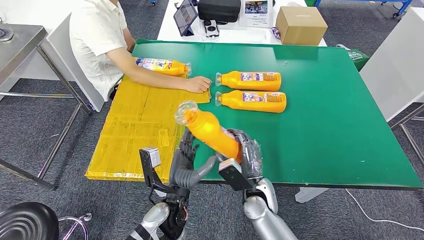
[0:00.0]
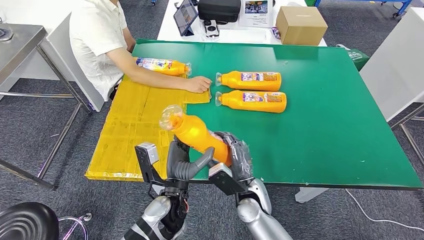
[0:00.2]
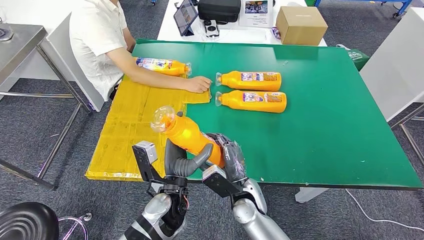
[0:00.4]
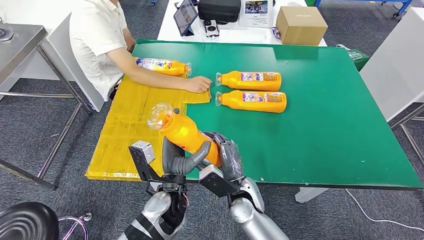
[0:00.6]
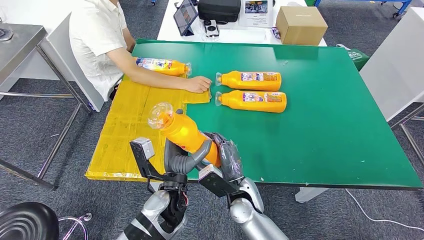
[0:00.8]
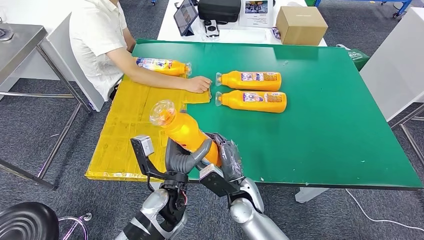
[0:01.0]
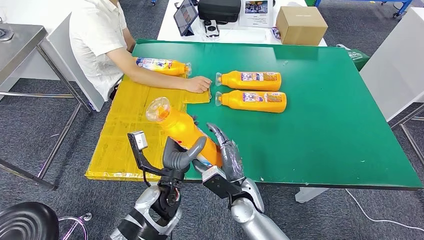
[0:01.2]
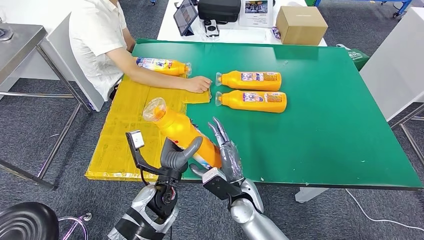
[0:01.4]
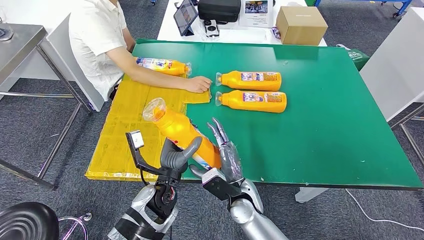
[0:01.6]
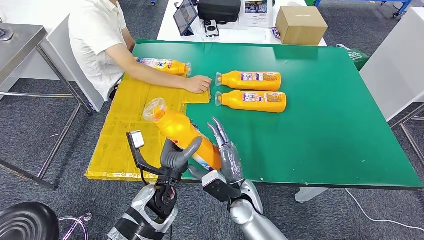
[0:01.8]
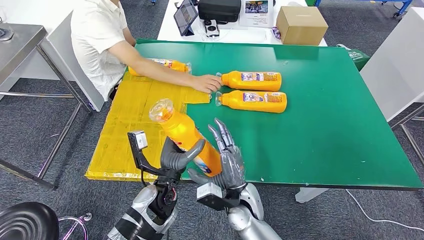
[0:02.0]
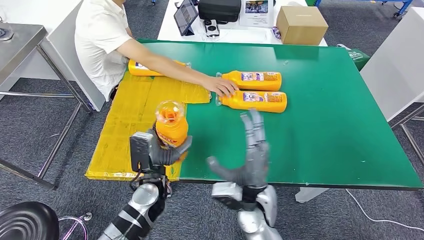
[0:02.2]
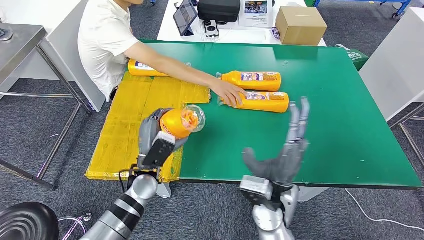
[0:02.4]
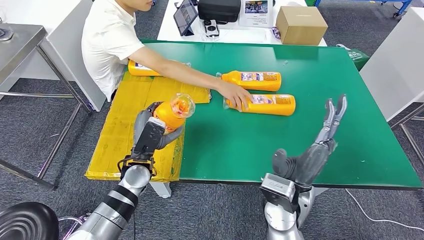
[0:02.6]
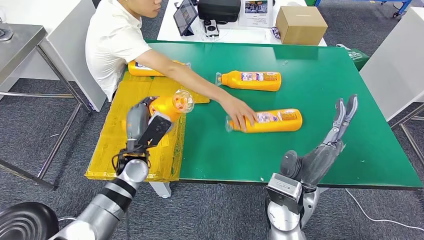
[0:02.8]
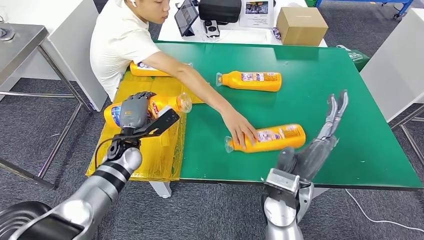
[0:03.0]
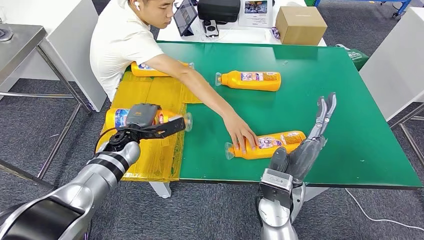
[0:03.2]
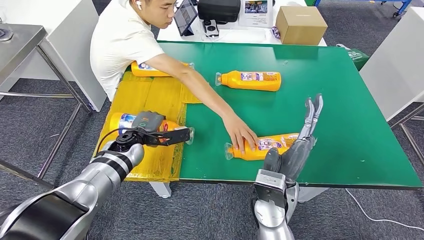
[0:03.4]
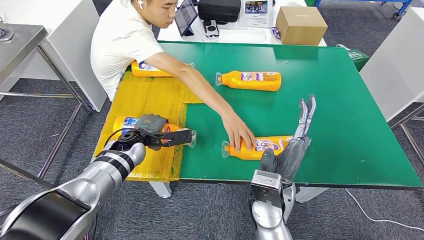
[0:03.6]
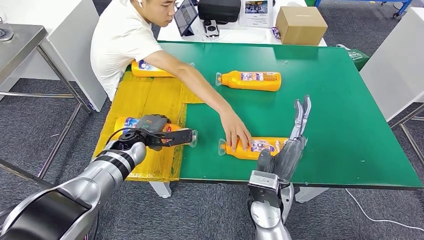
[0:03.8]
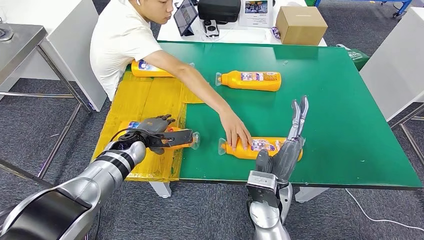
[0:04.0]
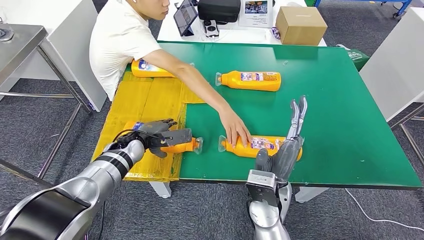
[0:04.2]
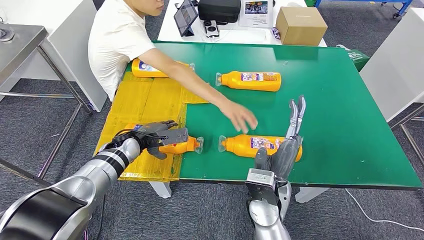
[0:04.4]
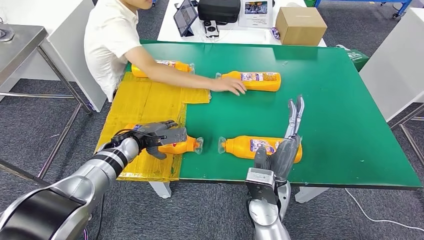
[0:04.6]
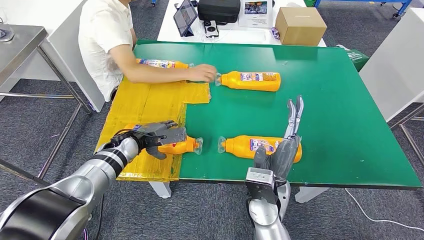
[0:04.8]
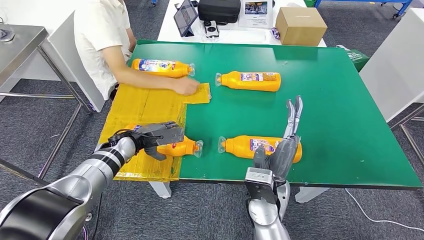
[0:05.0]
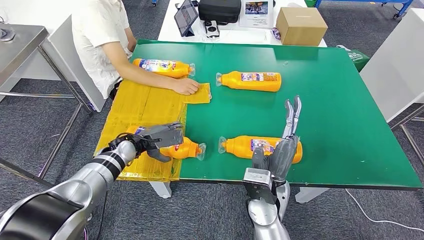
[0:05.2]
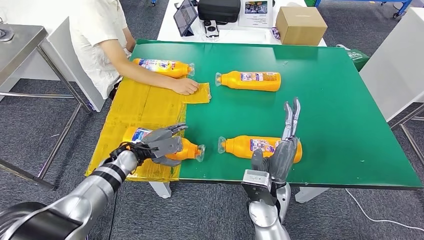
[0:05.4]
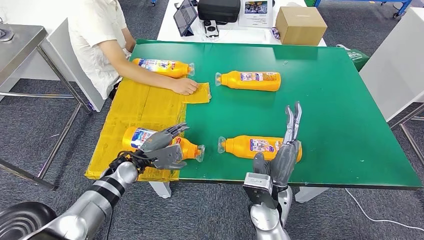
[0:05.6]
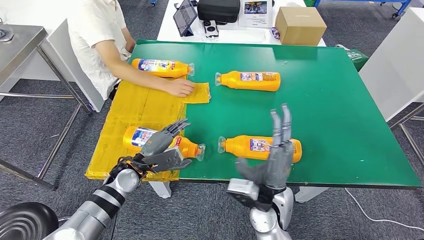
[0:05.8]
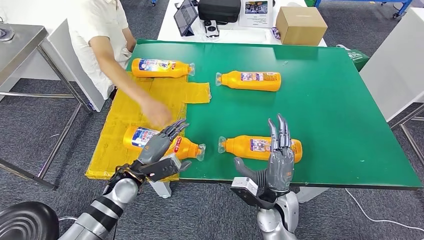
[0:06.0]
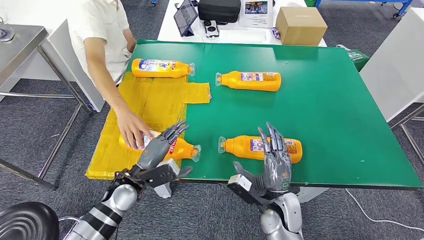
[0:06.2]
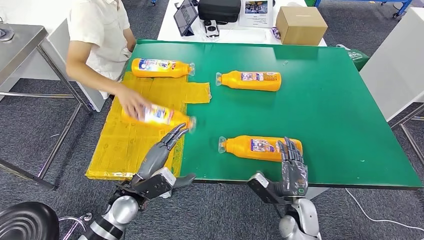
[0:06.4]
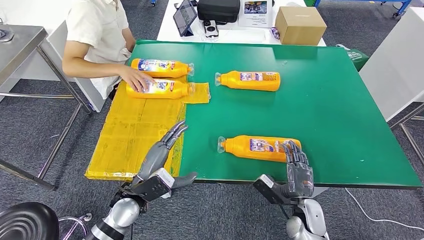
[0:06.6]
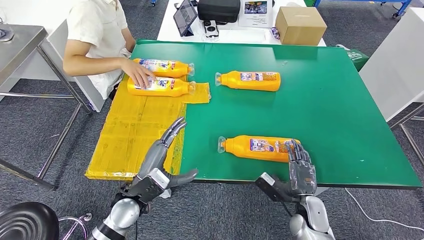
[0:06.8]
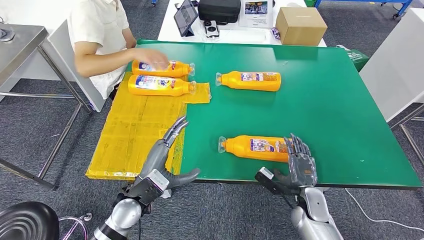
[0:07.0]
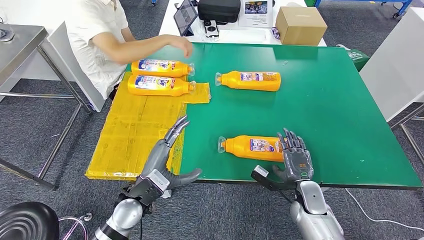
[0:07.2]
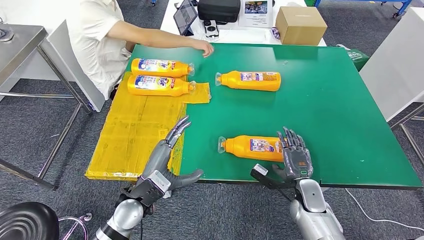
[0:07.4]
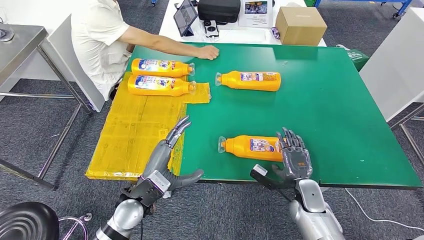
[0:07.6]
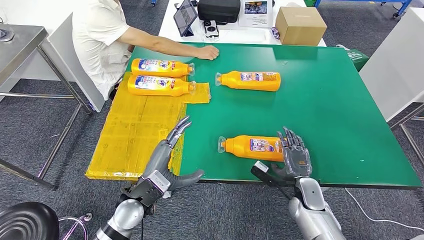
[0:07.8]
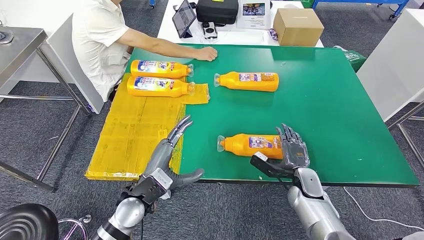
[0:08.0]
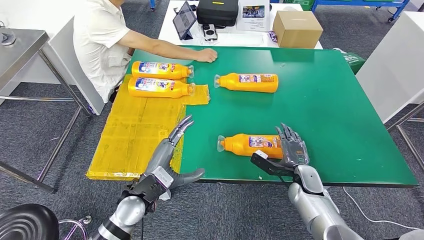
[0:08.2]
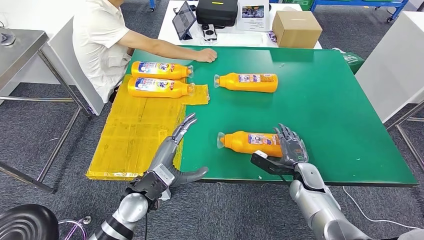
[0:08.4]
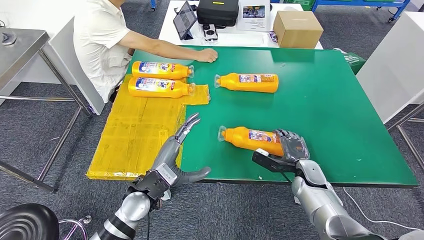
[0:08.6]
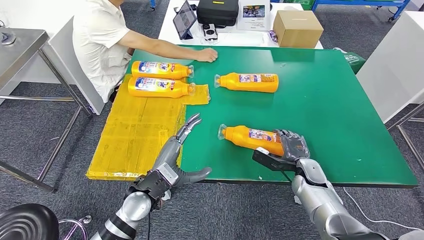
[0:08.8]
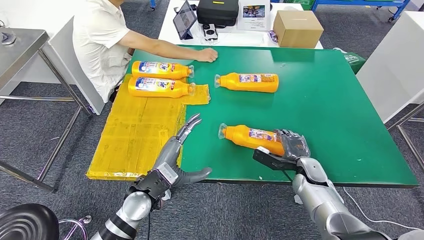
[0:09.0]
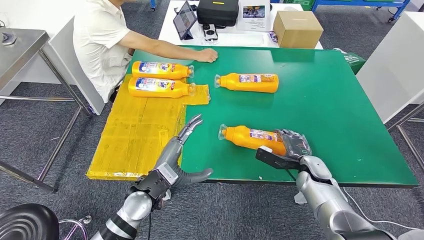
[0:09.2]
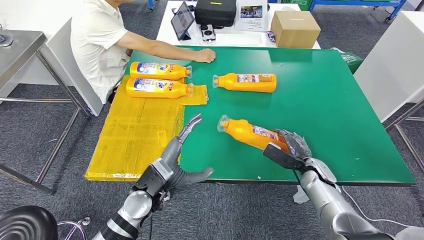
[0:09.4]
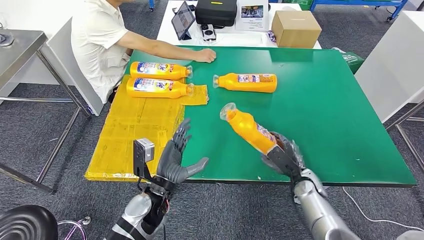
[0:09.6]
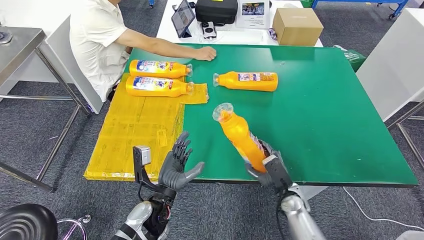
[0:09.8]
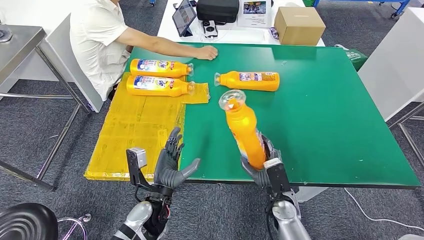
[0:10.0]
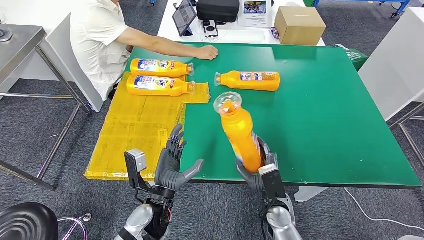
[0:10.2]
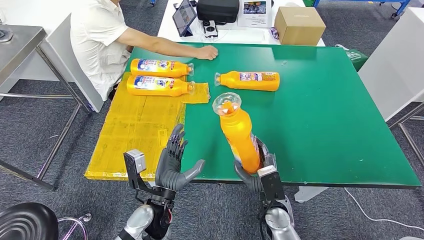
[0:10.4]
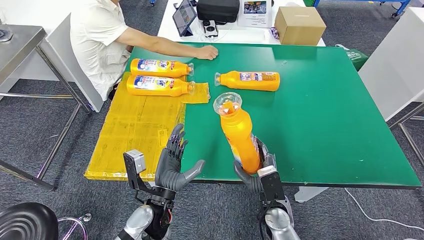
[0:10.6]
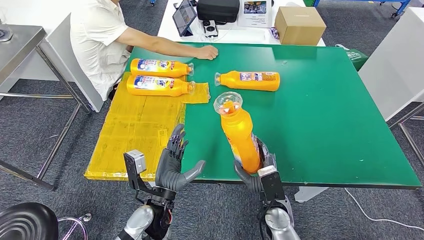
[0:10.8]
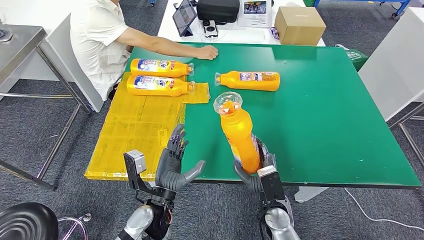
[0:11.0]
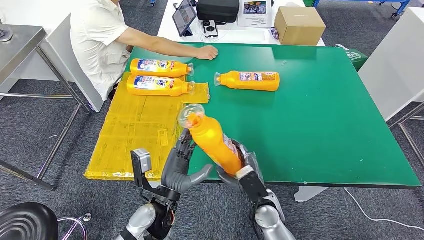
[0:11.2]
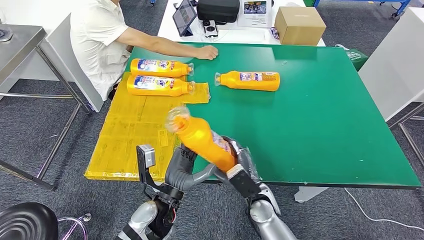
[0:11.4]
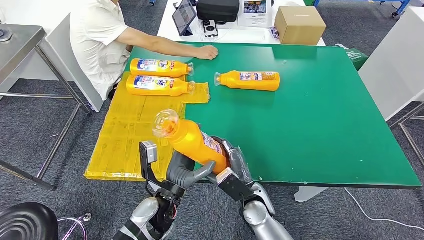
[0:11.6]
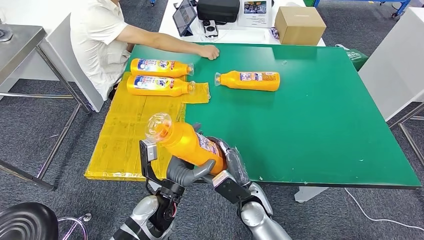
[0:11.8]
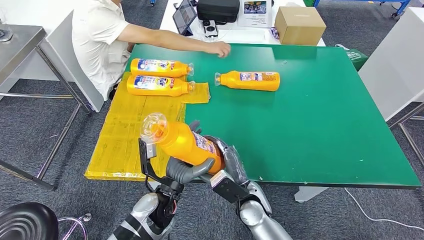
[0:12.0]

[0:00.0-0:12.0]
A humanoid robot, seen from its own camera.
Step, 0:00.8 to 0:04.6: Flip the bottle to face forward.
0:00.0 to 0:01.6: The right hand shifts by roughly 5 cm.
0:06.0 to 0:07.6: The right hand is displaced to the right and downward by about 15 cm. The left hand moves backward, approximately 5 cm.
0:10.4 to 0:12.0: The right hand goes some 5 cm to the left.

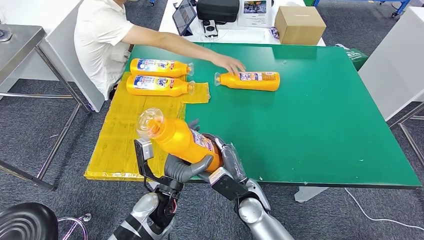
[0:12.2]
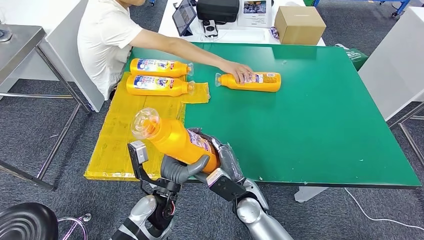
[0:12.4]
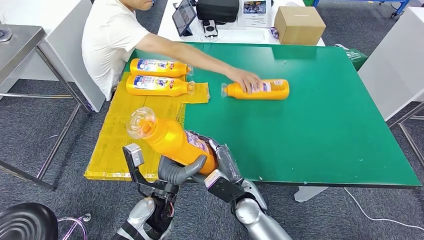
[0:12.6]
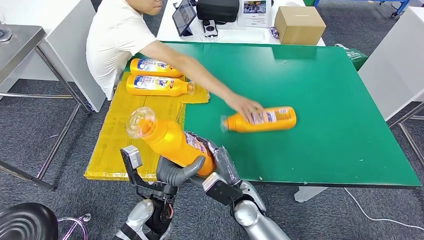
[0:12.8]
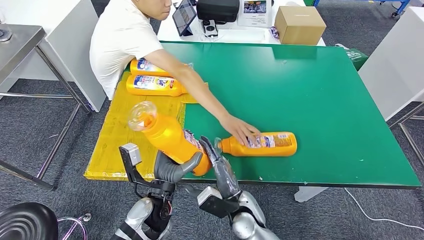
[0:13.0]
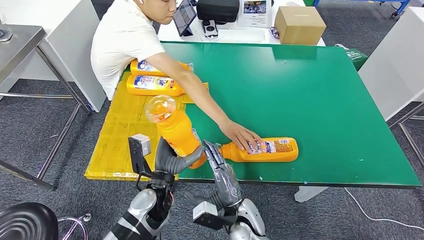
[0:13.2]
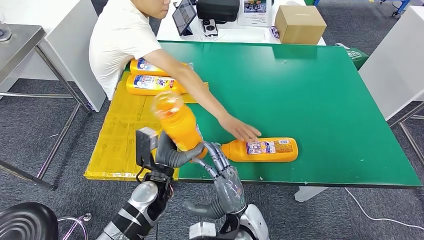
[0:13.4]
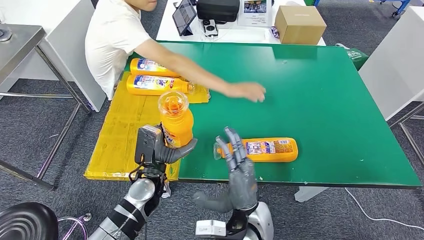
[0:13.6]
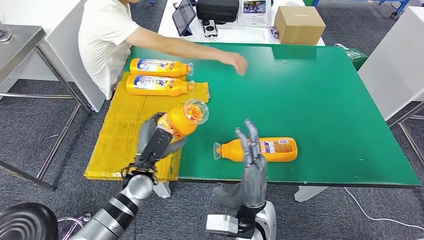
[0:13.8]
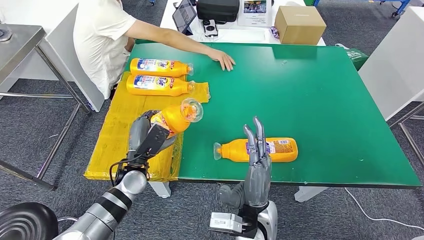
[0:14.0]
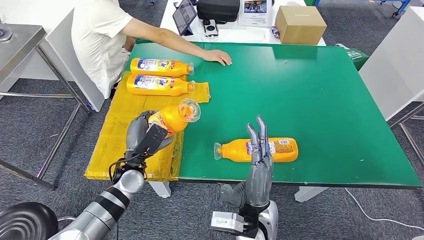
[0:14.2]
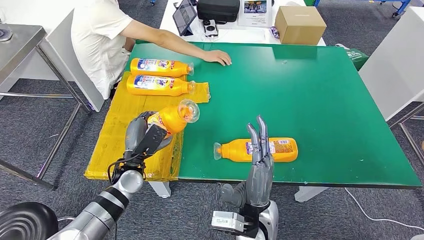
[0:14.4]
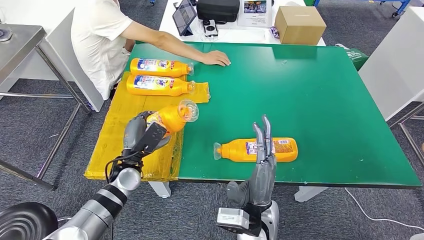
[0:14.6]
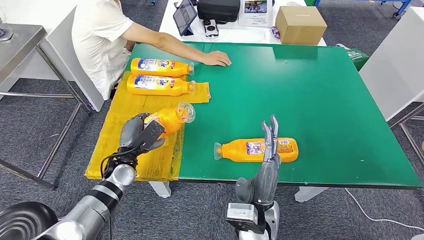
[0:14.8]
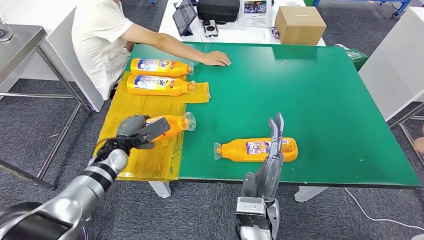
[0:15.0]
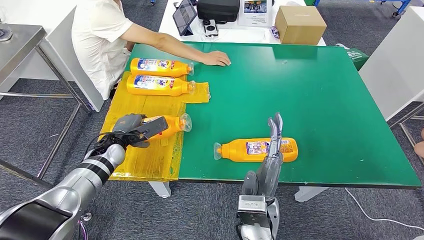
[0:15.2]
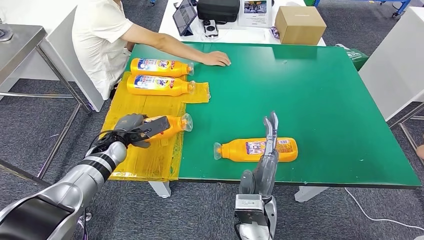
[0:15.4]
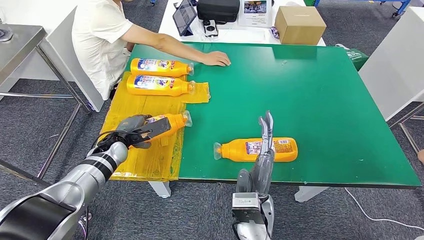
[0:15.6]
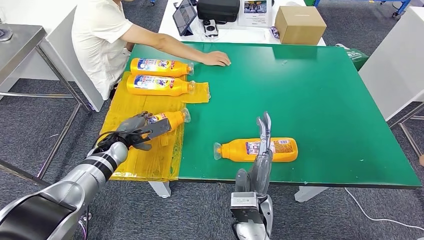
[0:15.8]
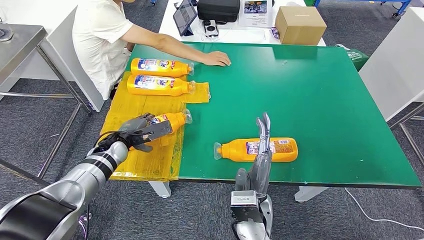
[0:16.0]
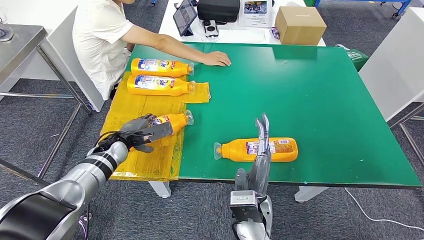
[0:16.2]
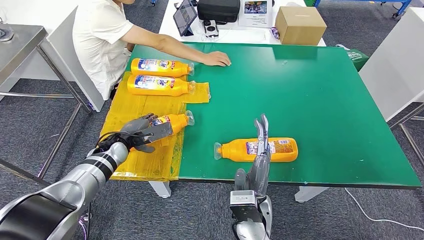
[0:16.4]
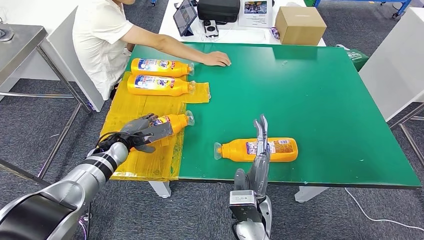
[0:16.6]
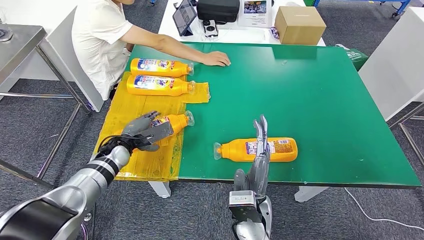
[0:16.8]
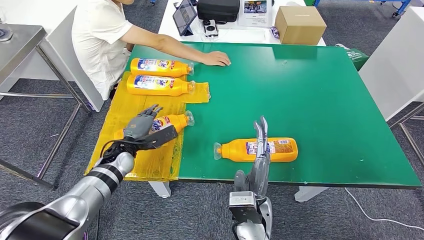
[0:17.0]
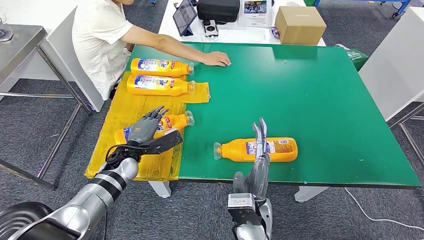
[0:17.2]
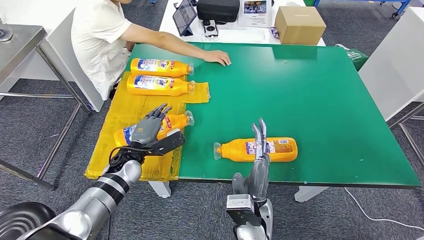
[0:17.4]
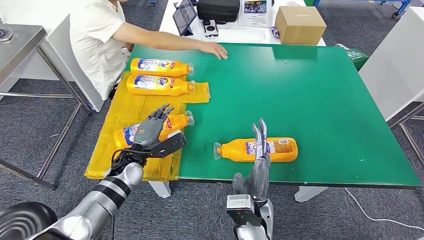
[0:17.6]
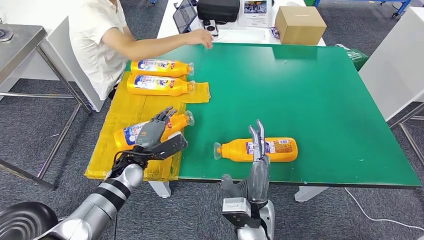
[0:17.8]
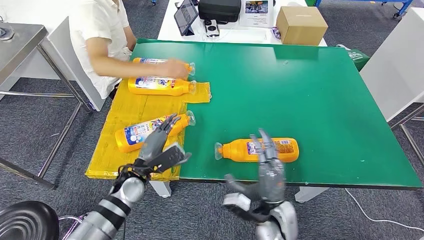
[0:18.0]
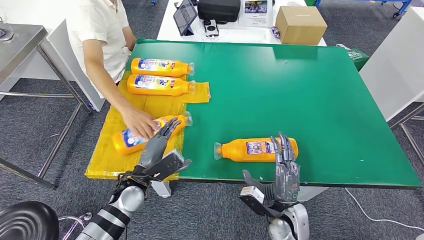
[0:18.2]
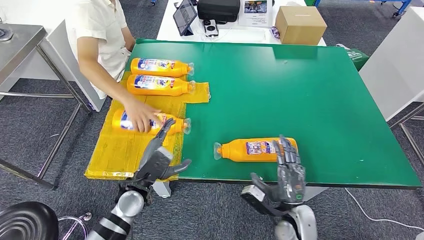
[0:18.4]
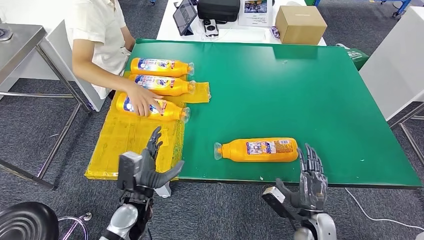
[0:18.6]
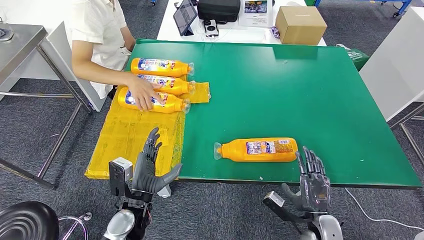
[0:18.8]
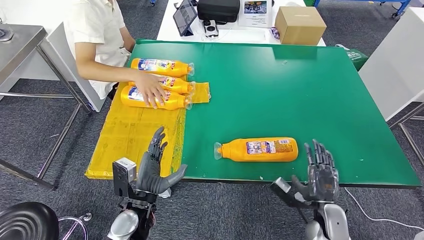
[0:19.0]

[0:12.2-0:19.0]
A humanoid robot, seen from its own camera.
Step, 0:12.2 to 0:15.4: Flip the bottle to face forward.
0:12.2 to 0:13.6: The right hand travels backward by some 5 cm, while the left hand changes place by approximately 5 cm.
0:15.0 to 0:16.2: The hands stay close to where they were, moving slightly.
0:16.2 to 0:17.6: The left hand is displaced backward and to the right by about 5 cm.
0:17.6 to 0:19.0: The right hand shifts roughly 25 cm to the right and downward. Meanwhile the left hand moves backward, approximately 15 cm.
